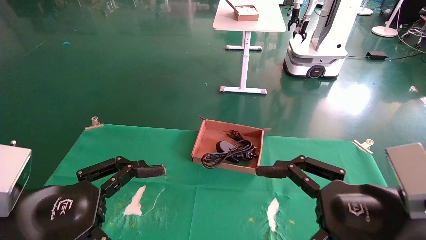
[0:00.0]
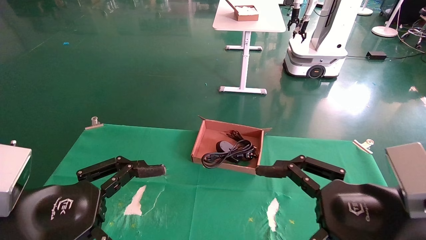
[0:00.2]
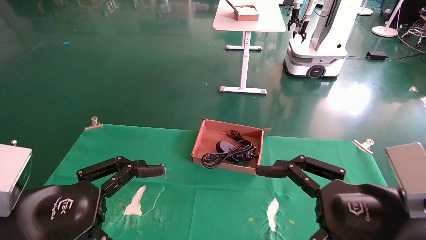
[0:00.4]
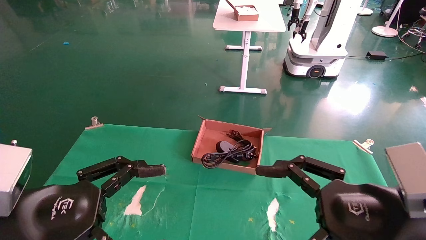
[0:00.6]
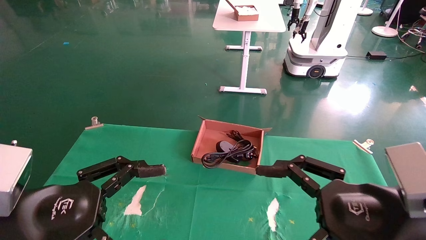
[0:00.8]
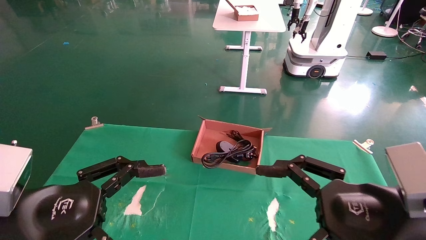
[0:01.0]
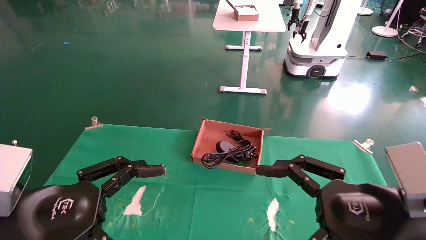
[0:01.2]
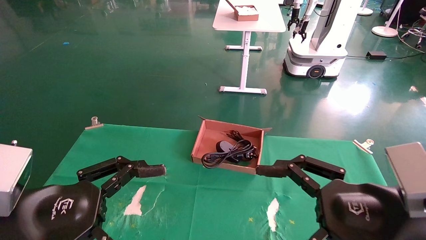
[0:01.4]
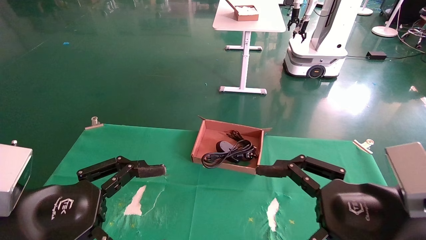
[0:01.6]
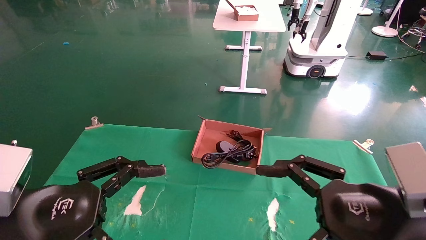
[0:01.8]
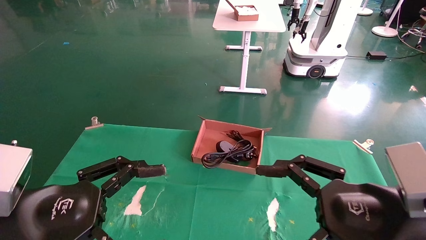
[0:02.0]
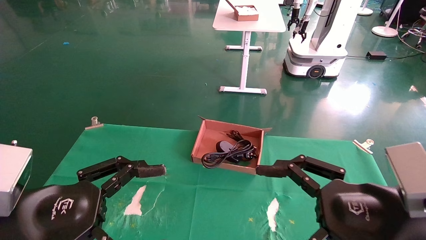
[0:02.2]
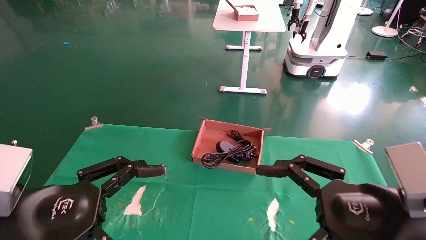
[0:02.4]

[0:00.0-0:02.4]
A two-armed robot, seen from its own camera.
0:00.0 to 0:02.4: Neither gripper changes place.
